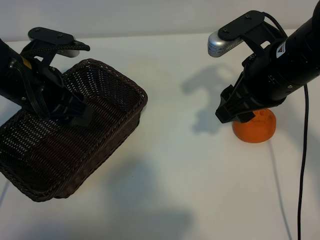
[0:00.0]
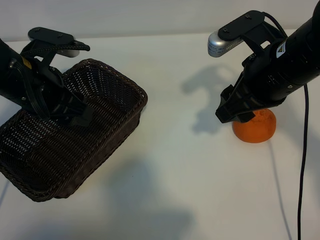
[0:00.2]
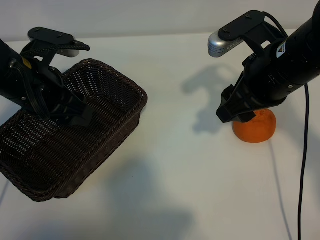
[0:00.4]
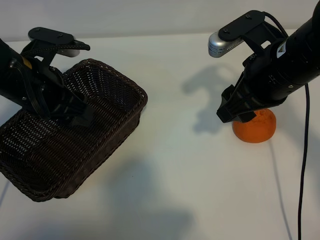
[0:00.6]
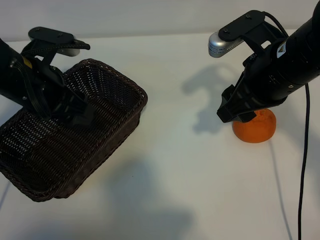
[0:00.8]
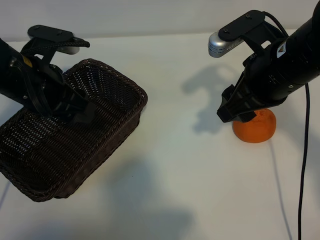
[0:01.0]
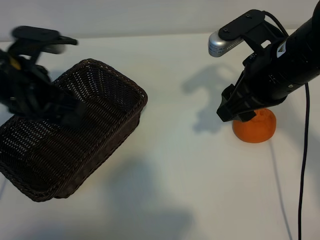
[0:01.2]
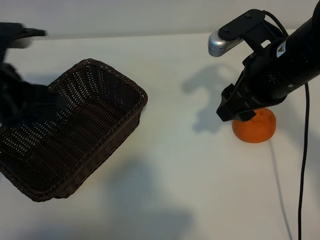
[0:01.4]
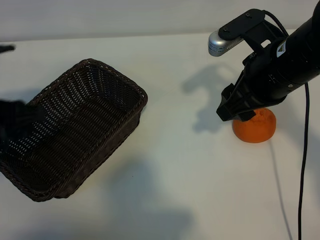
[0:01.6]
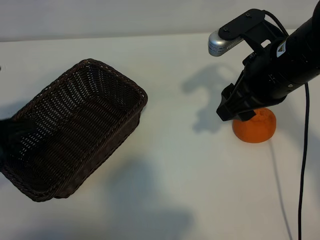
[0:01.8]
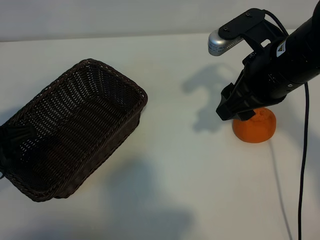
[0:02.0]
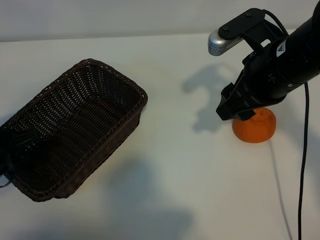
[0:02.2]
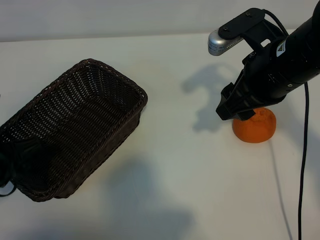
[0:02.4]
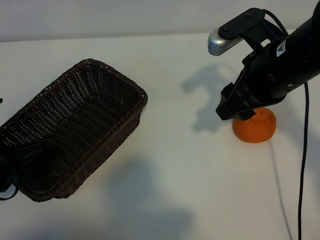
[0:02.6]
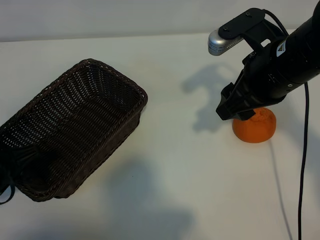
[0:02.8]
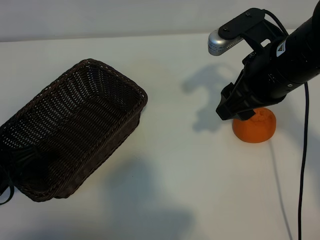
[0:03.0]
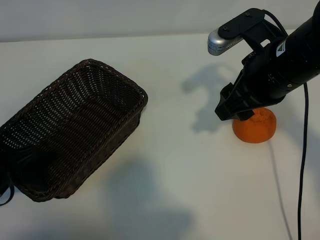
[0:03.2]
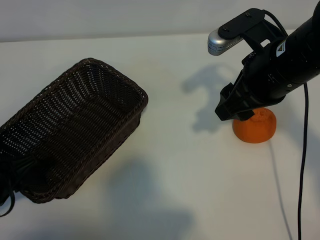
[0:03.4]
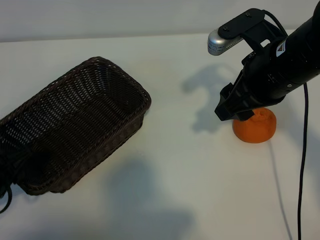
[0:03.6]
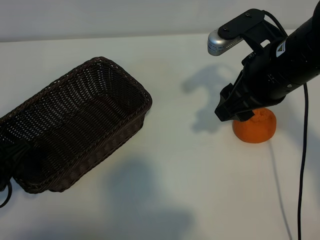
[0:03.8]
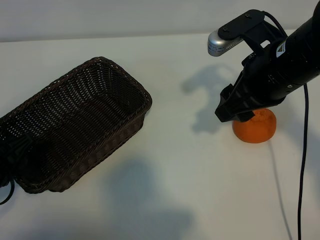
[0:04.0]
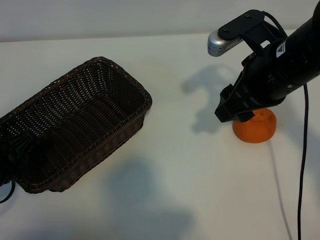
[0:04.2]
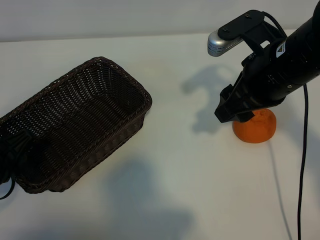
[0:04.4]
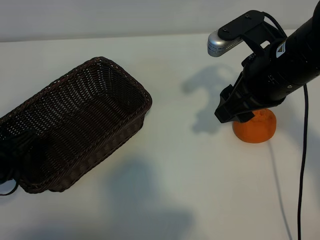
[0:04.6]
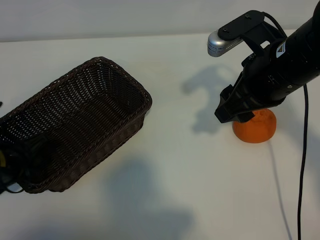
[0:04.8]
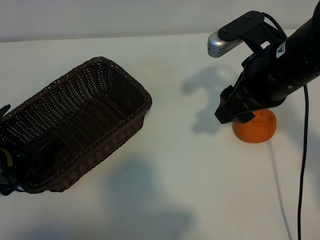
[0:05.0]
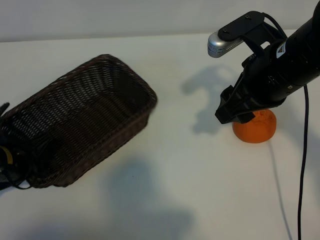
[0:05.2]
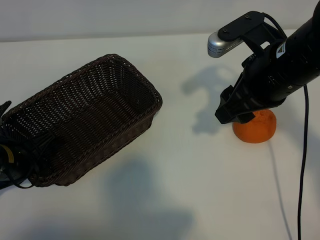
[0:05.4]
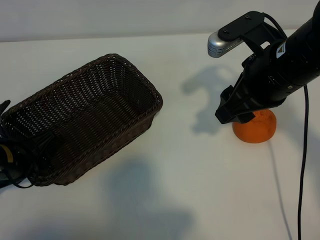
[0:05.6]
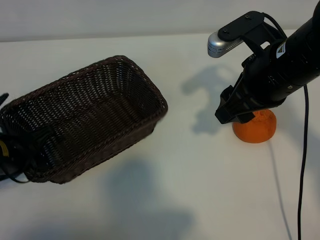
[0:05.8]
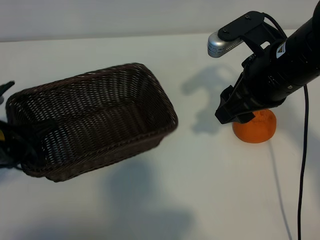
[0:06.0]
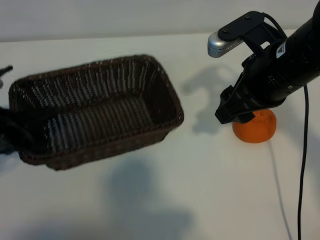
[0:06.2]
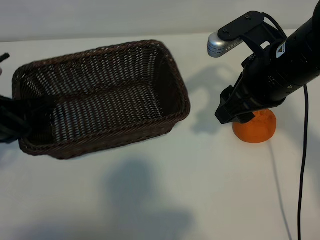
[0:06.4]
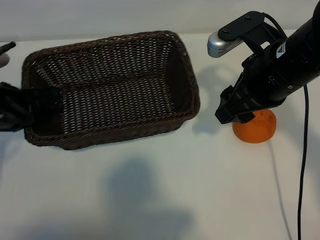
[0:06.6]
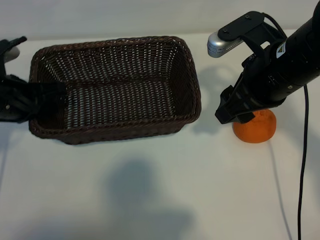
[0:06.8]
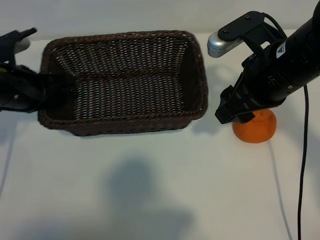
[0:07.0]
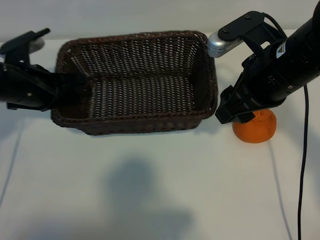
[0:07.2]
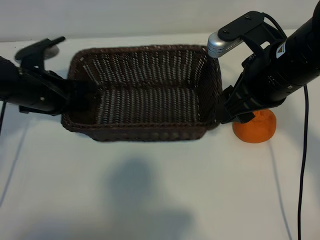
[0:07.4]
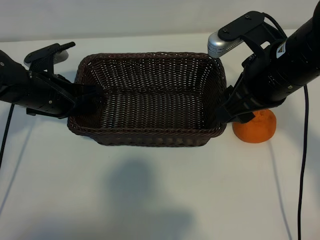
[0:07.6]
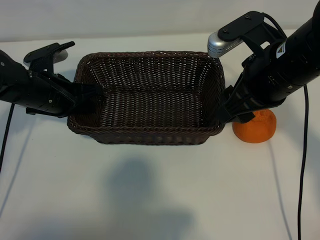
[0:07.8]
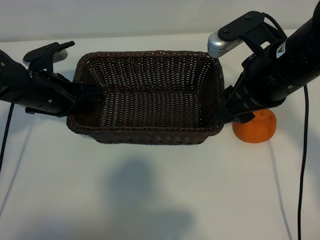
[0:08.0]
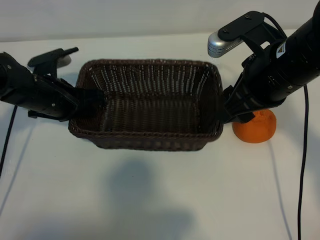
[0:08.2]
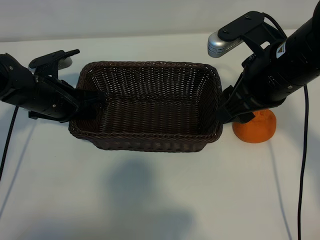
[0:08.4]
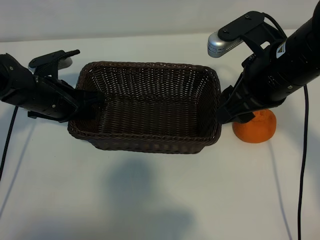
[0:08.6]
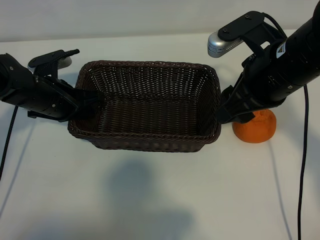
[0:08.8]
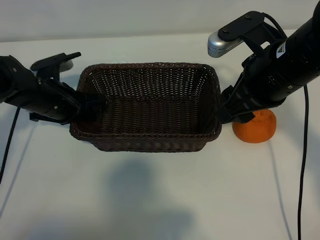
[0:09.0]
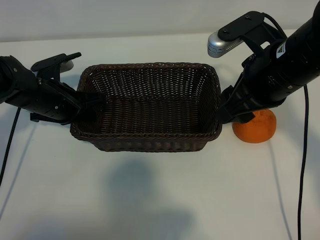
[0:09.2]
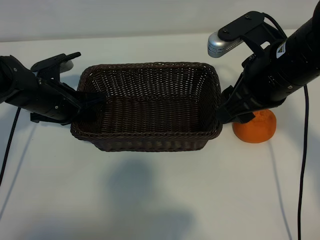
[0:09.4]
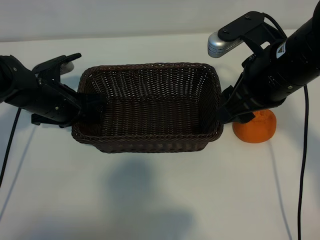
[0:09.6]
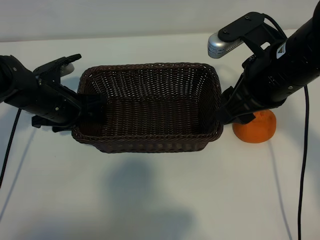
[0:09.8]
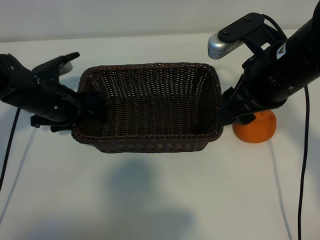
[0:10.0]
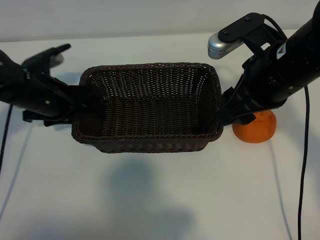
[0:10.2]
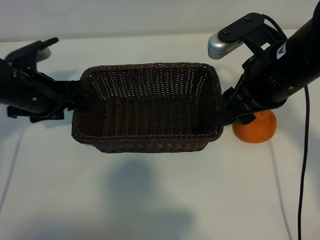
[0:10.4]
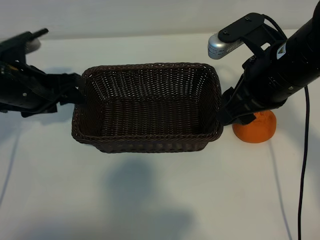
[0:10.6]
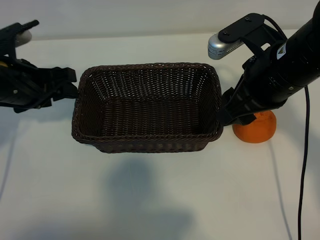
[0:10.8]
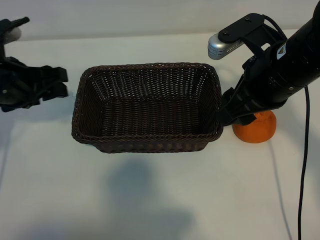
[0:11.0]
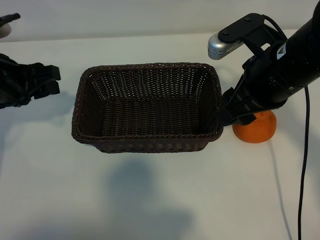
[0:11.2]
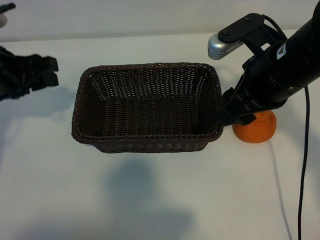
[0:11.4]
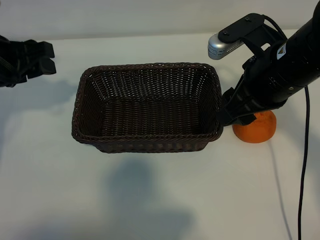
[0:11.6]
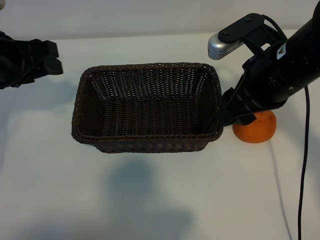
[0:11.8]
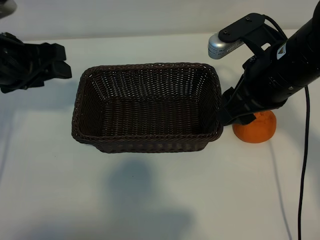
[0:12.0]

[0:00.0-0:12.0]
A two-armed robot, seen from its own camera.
Task of the whole recording: pick up the orange and put it into the basket.
Step, 0:00.6 to 0:05.2: Grasp the basket with left gripper.
Step, 0:05.4 to 0:09.6: Place the basket in the center of view with left gripper.

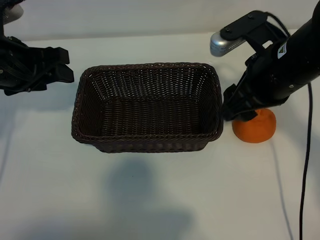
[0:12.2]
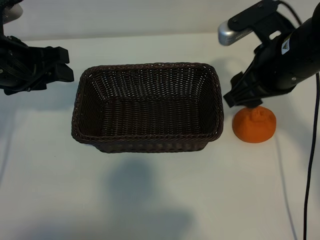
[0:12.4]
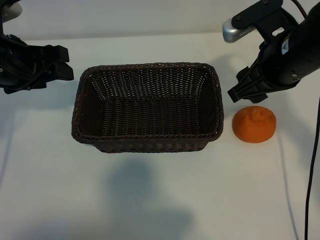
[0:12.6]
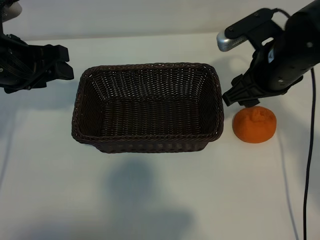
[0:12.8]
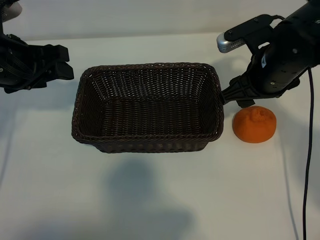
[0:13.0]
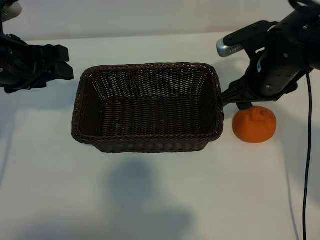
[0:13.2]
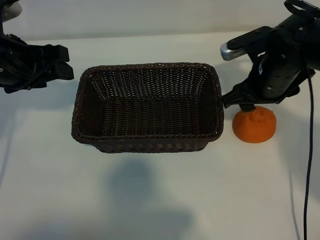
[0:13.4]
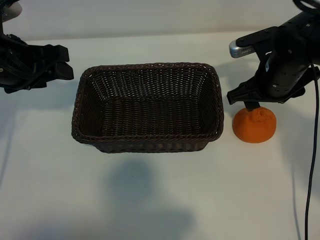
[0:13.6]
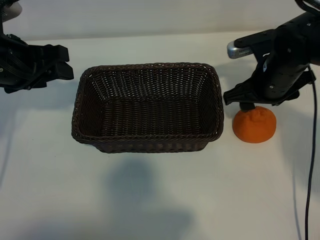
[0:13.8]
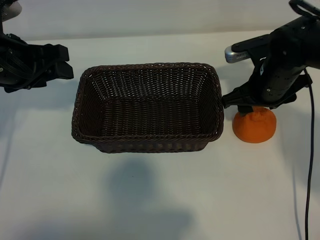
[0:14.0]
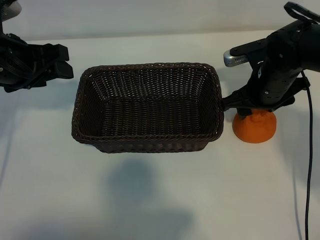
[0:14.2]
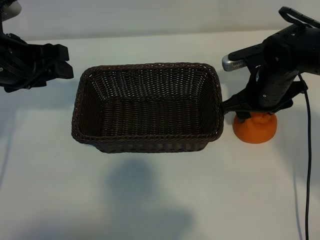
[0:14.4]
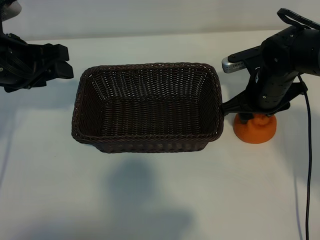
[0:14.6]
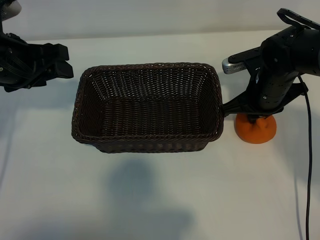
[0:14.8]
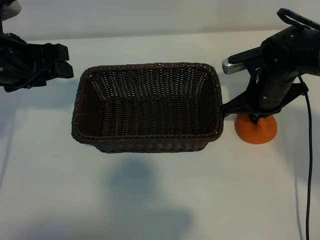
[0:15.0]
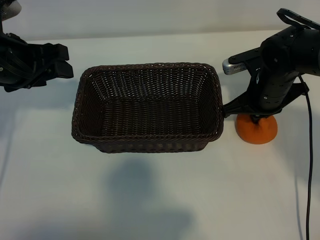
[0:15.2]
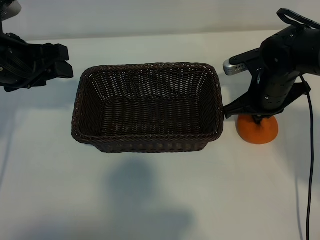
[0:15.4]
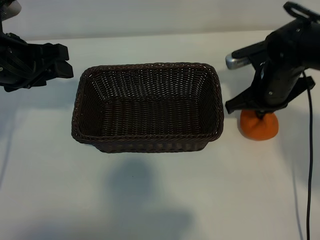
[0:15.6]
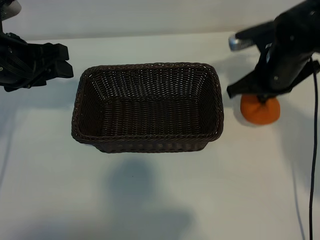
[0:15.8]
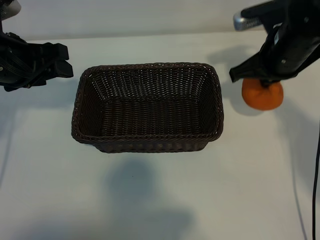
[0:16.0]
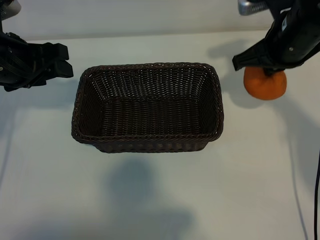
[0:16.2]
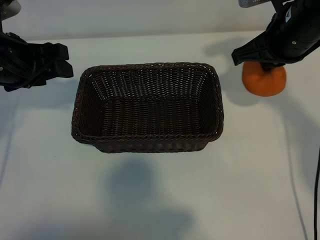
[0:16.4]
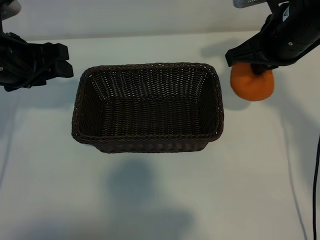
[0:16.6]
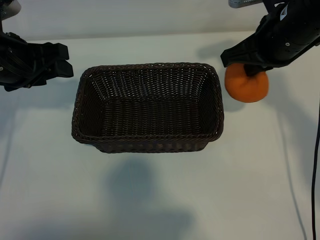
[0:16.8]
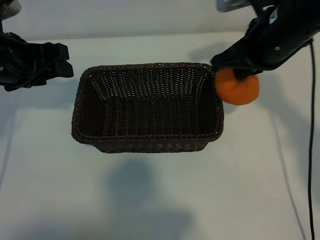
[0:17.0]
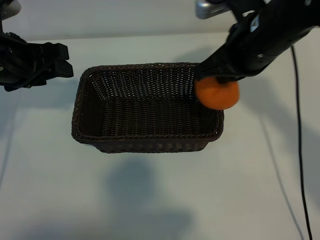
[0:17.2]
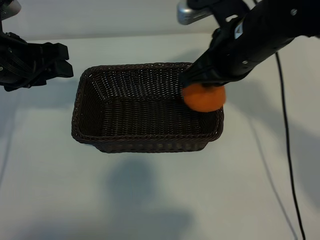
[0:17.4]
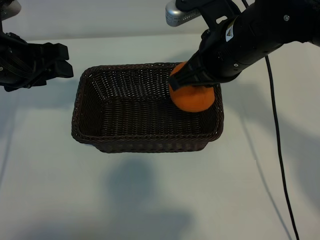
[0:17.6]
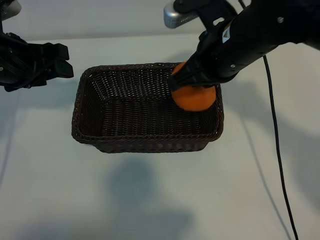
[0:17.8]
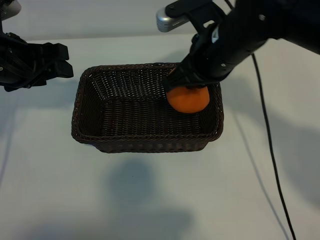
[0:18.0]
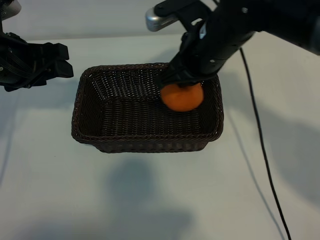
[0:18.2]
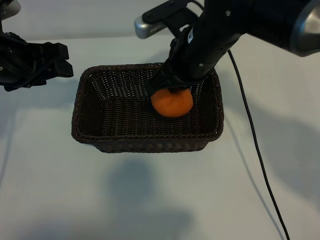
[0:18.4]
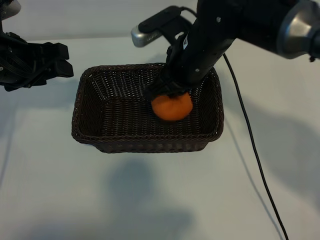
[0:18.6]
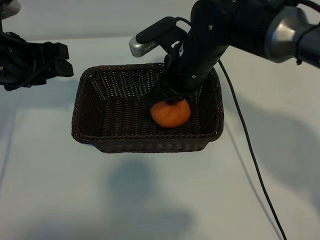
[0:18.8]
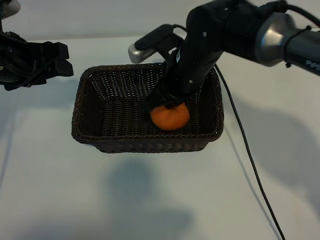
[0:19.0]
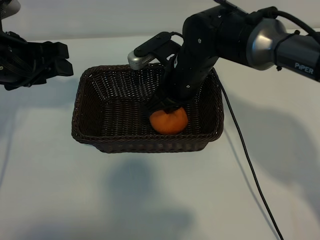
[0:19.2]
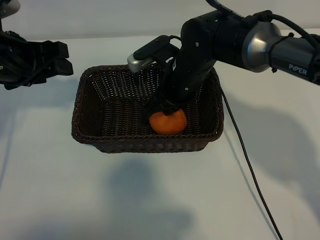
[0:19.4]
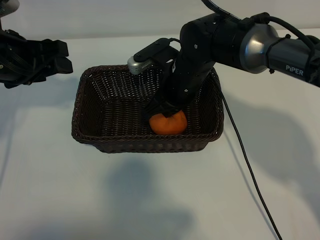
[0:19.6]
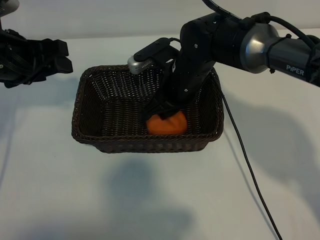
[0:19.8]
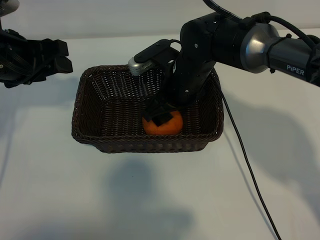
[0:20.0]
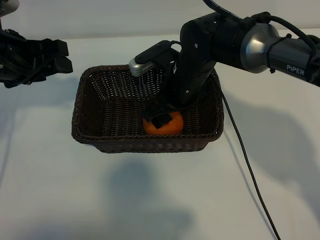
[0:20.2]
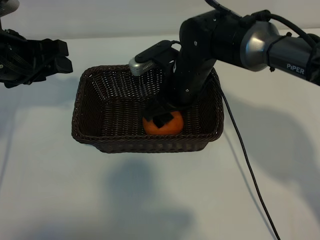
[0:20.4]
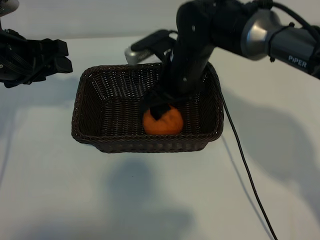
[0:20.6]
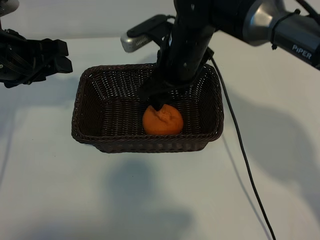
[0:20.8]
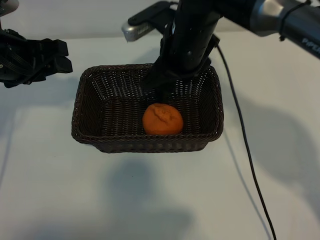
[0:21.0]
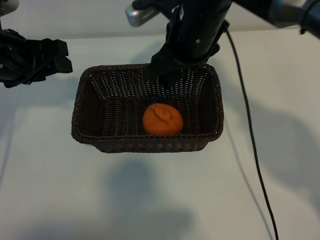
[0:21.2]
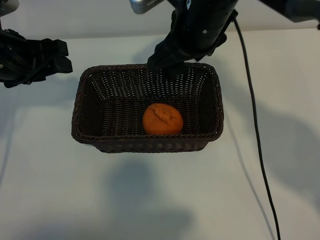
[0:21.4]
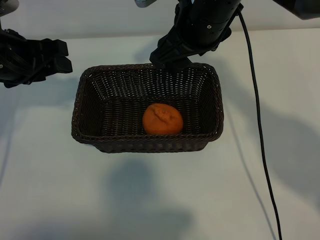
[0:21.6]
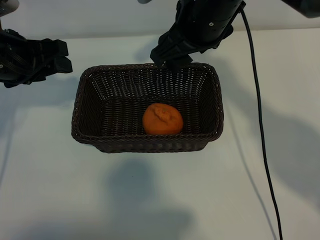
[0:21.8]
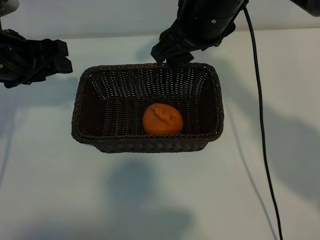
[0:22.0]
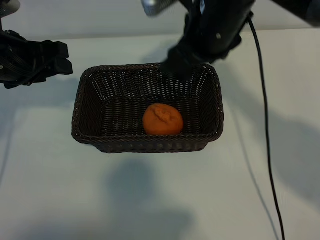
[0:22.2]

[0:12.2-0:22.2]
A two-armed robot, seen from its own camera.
Task of the whole recording: pick up the orange and put it into the basket.
Step, 0:12.2 to 0:14.8: Grasp the orange with right gripper.
Step, 0:15.2 to 0:20.0: Place the orange in the basket with right gripper.

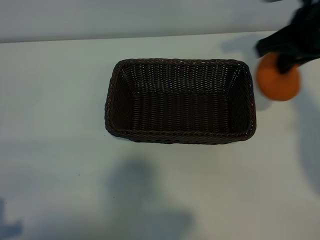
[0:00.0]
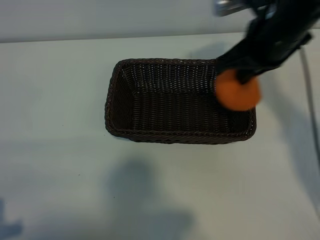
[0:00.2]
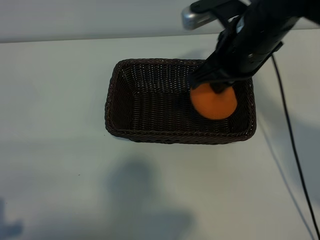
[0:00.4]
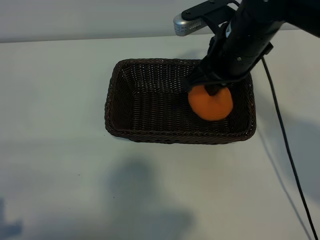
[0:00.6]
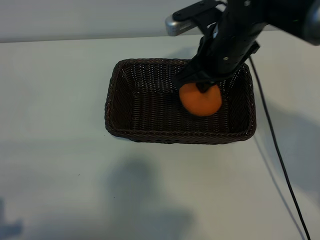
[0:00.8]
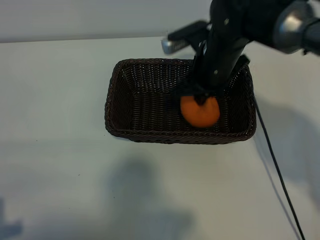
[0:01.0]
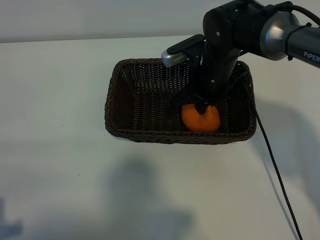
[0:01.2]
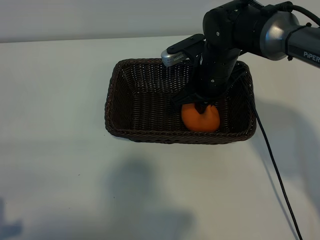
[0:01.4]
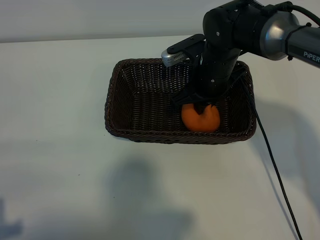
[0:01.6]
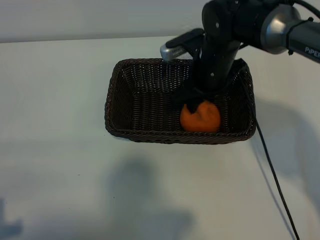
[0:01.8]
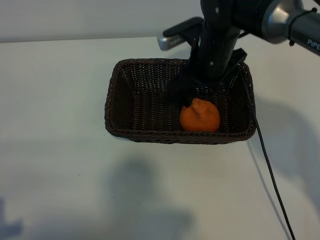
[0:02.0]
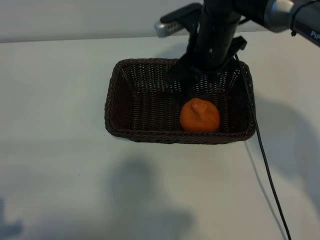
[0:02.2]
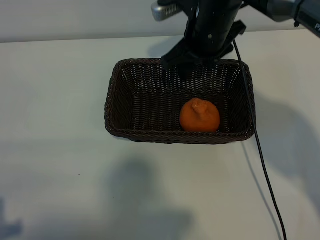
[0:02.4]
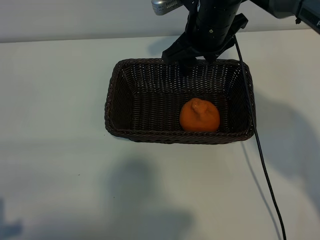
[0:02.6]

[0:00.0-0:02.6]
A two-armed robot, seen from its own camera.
Task of the whole recording: pick up the orange and put it into the basket.
Step, 0:00.0 to 0:01.8: Place the orange in the basket with right gripper.
